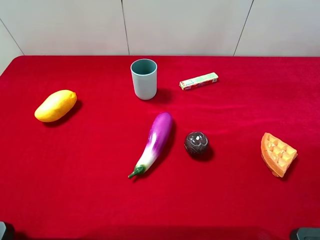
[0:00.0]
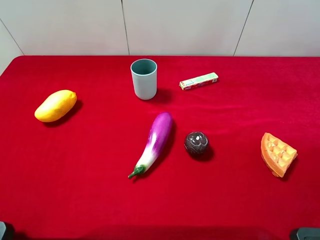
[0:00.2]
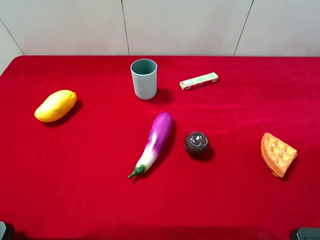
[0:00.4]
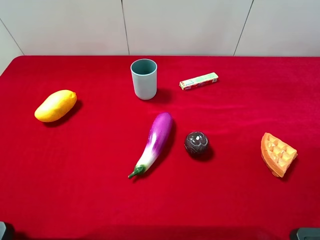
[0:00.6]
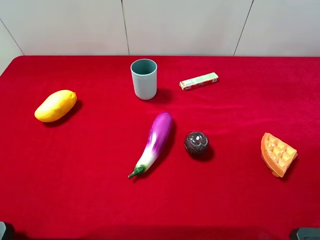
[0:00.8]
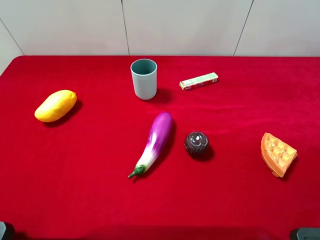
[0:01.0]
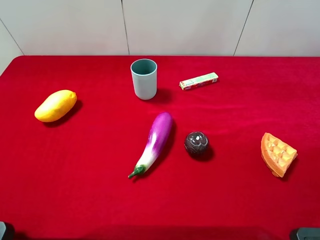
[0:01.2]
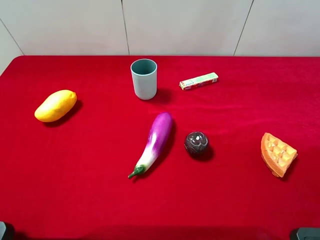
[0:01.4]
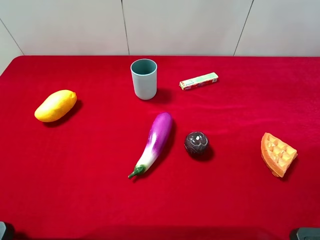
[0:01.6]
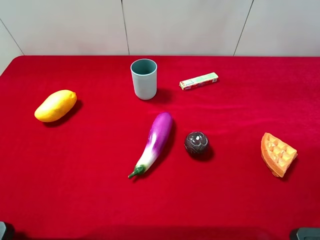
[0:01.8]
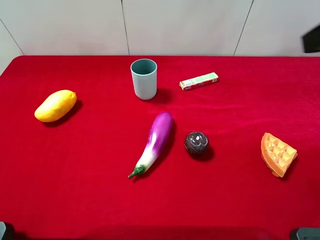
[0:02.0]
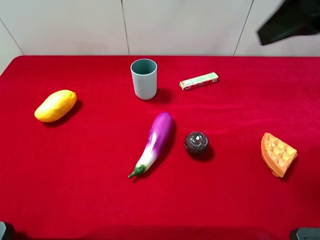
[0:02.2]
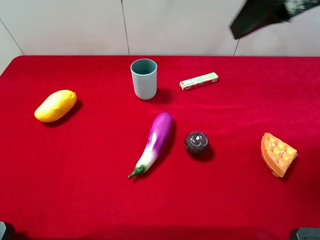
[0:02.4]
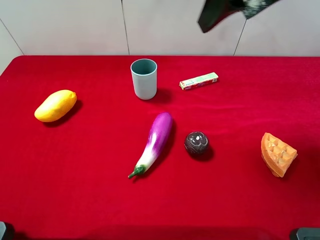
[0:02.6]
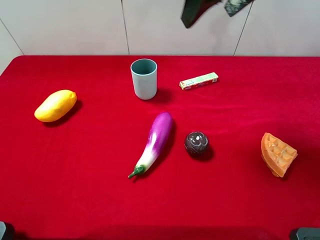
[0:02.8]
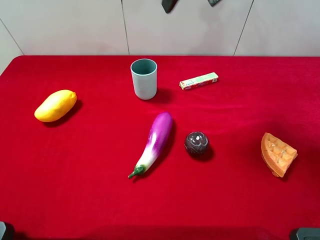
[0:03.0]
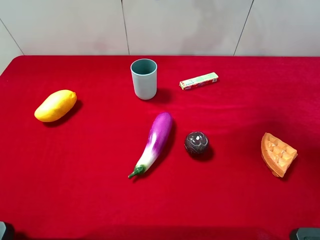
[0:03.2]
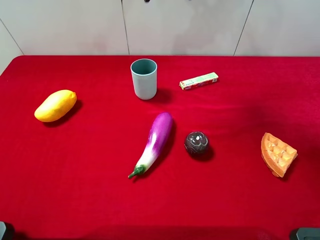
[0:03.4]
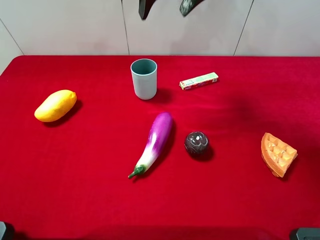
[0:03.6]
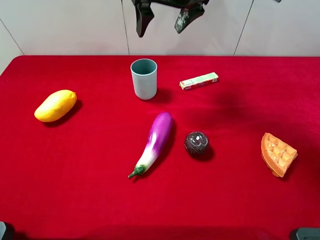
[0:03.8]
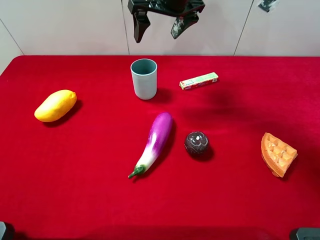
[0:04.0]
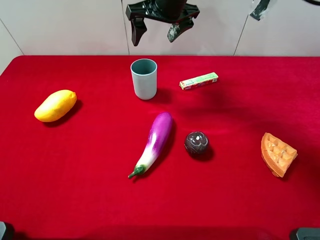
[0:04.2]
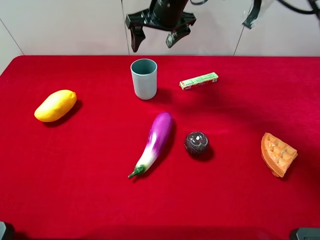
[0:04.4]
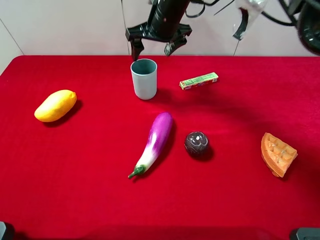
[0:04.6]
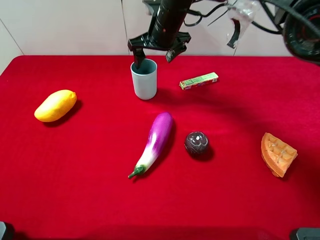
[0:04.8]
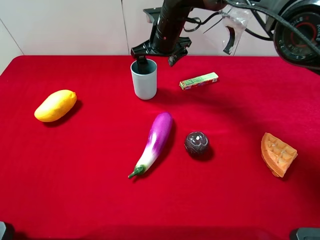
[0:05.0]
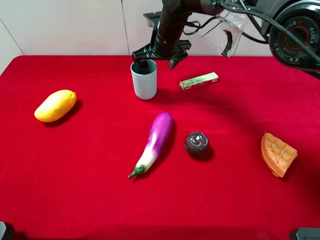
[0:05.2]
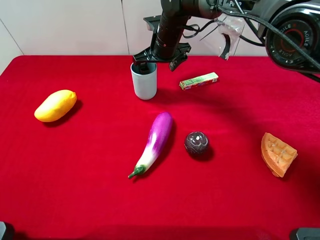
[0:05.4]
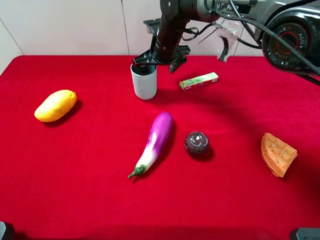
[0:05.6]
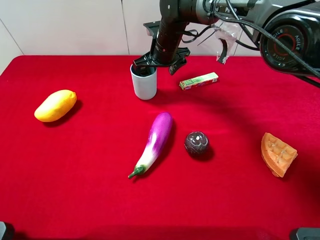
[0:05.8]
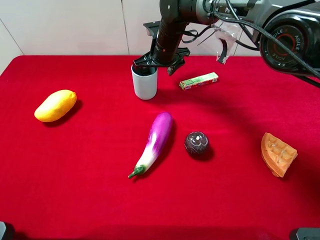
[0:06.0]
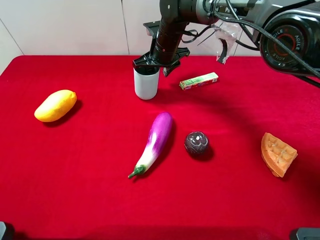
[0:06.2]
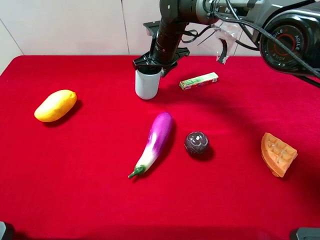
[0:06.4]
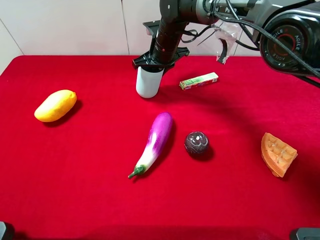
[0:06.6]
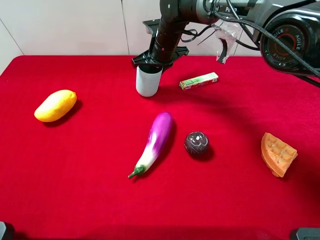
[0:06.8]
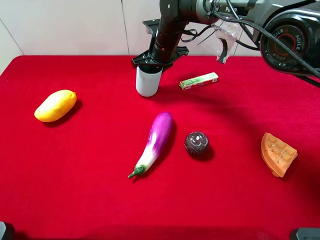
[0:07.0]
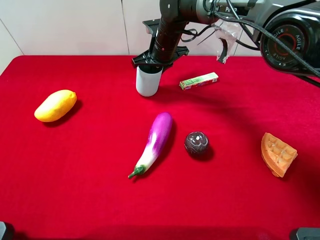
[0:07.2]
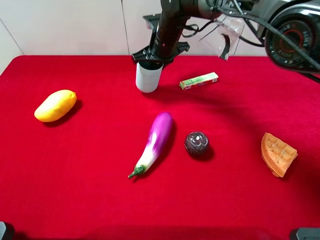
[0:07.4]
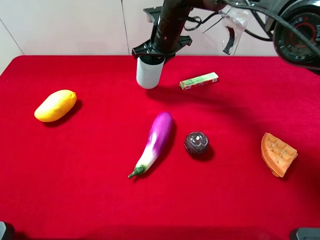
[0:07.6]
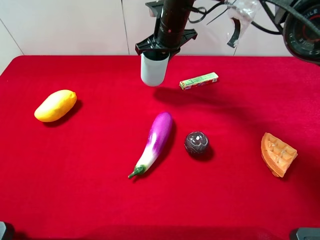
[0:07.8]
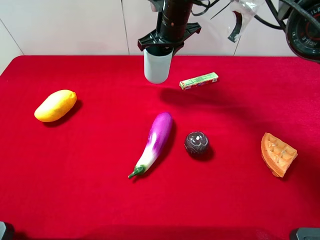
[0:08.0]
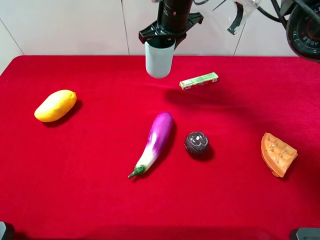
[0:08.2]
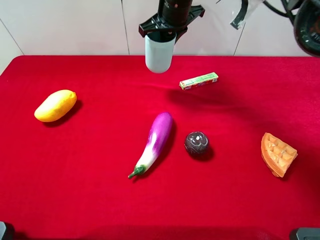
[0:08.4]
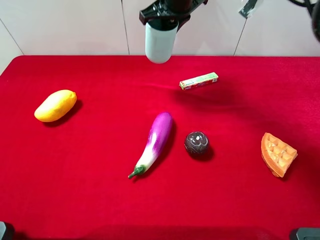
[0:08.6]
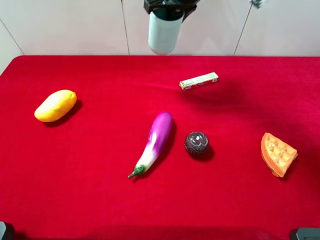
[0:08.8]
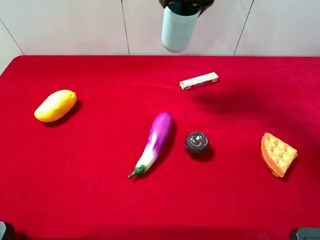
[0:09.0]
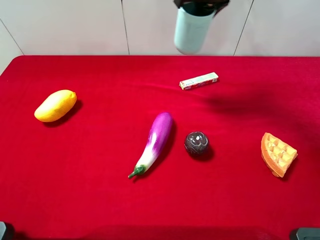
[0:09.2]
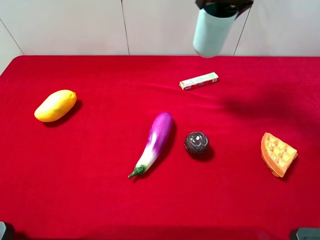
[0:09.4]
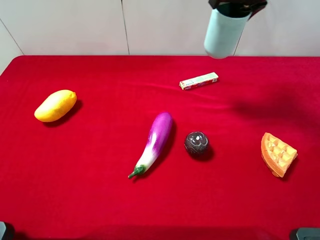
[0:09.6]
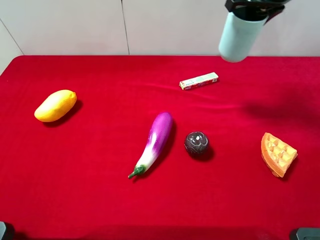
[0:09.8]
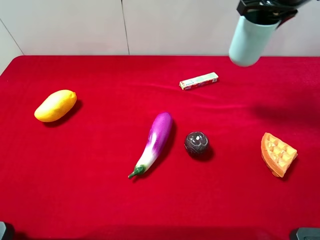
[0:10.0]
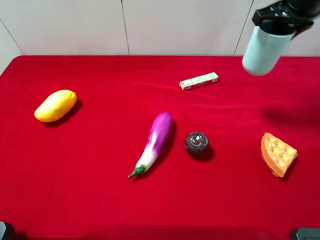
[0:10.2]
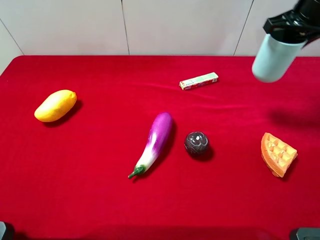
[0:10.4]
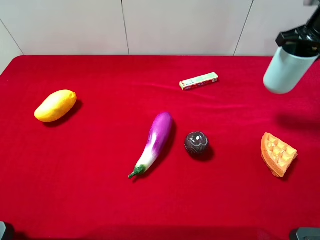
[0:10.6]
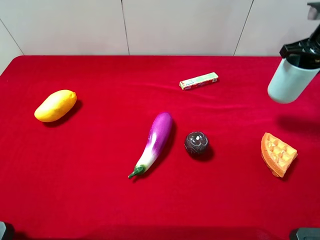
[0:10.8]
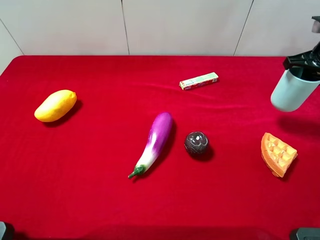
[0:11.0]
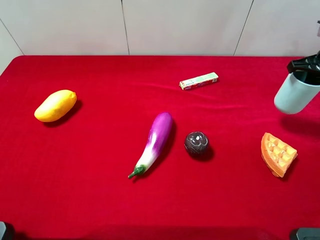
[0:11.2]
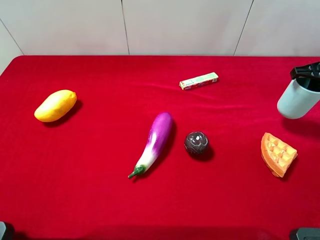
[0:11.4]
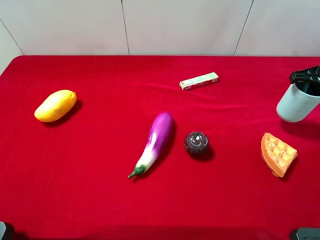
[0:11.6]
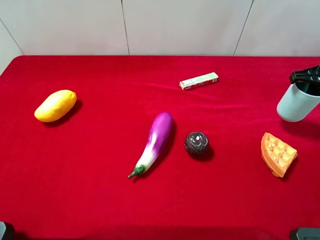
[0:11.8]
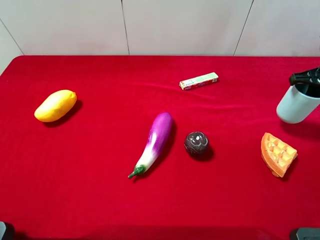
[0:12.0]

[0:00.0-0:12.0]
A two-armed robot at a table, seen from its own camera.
Task of the whole recording: the gripper move the object.
Step, 0:00.0 to 0:07.0: Grasp the blue cup with the right gripper.
0:01.6 to 0:03.0: The right gripper is displaced forward and to the left by about 30 cm.
0:03.0 to 0:04.4: The right gripper shifts roughly 20 cm downward, forward and to the left.
0:04.4 to 0:06.0: The right gripper is displaced downward by some 10 cm.
0:06.0 to 0:07.6: The right gripper closes.
0:07.6 to 0:09.0: The right gripper shifts roughly 15 cm upward and to the right.
0:09.0 to 0:10.4: The right gripper shifts approximately 20 cm to the right.
0:10.4 to 0:12.0: The right gripper is displaced downward and to the right by approximately 15 cm.

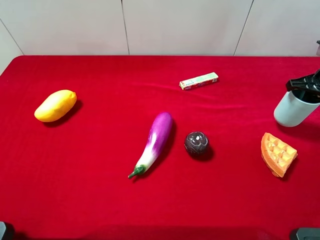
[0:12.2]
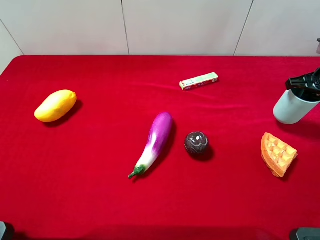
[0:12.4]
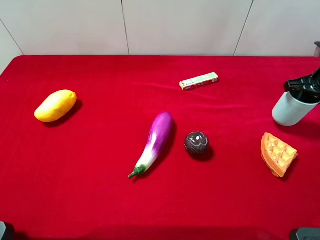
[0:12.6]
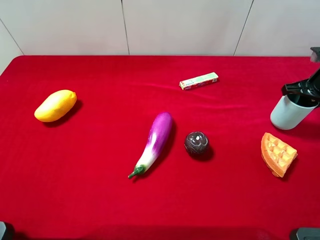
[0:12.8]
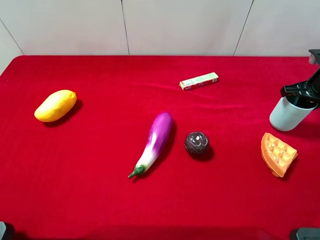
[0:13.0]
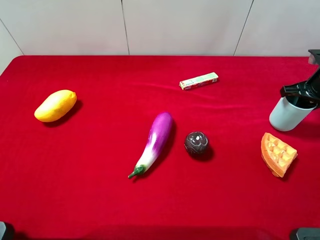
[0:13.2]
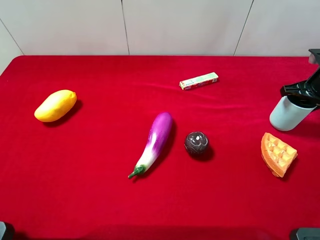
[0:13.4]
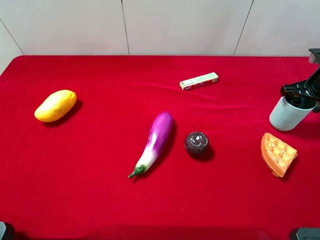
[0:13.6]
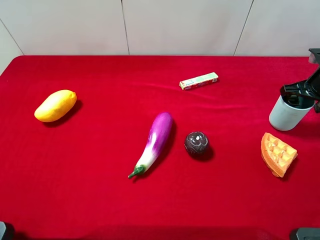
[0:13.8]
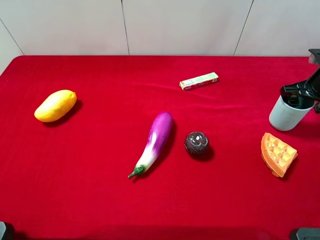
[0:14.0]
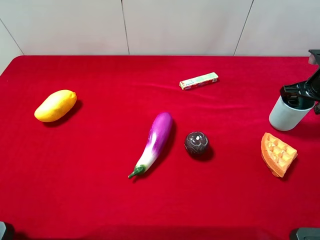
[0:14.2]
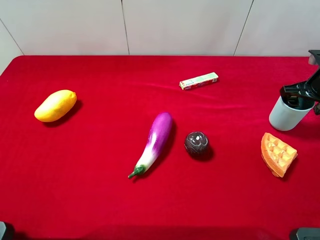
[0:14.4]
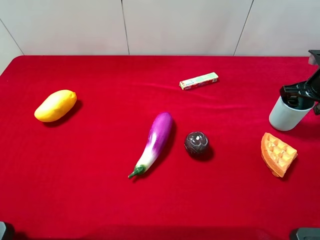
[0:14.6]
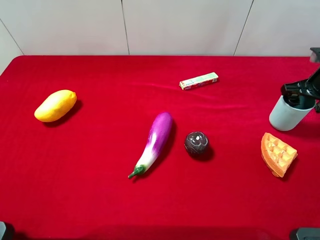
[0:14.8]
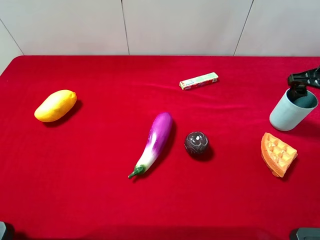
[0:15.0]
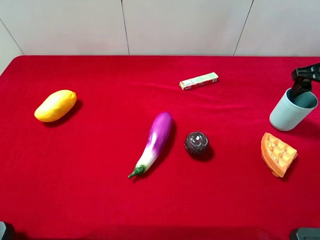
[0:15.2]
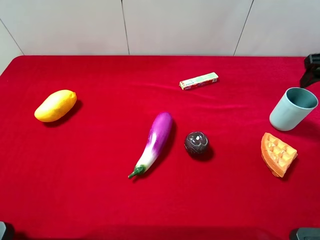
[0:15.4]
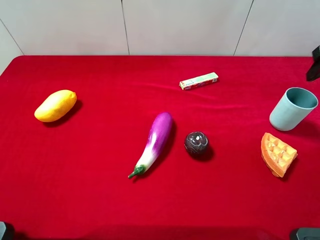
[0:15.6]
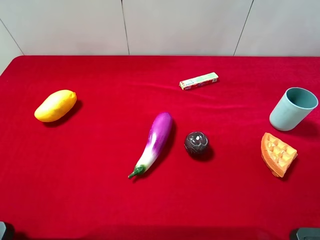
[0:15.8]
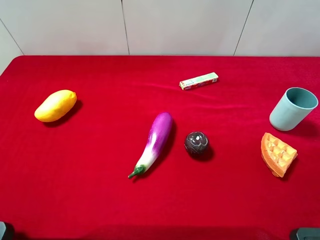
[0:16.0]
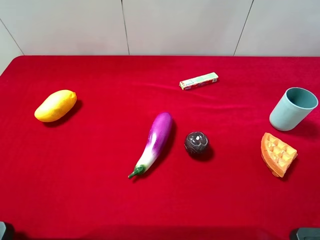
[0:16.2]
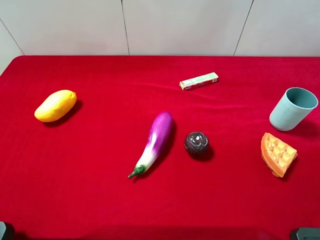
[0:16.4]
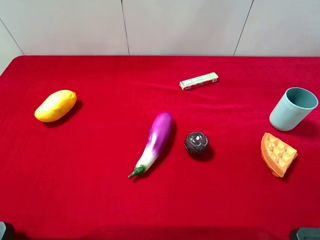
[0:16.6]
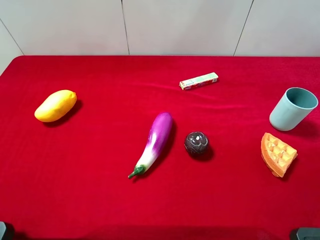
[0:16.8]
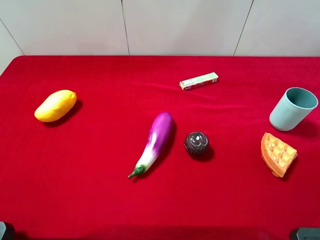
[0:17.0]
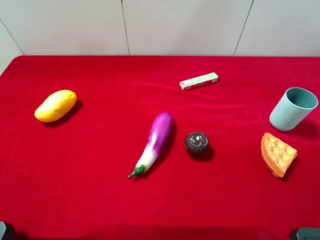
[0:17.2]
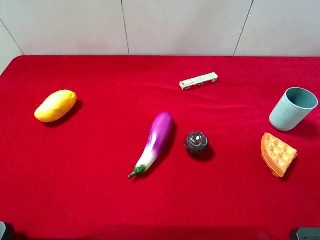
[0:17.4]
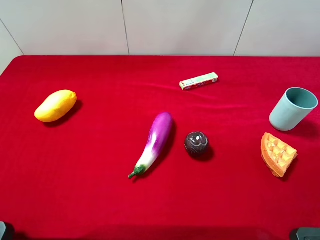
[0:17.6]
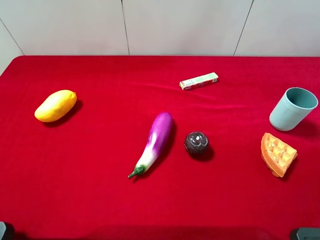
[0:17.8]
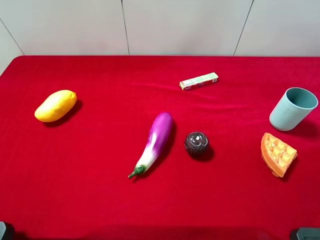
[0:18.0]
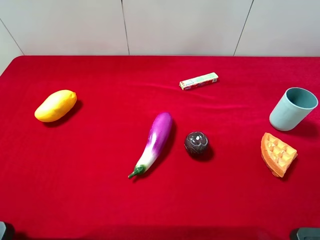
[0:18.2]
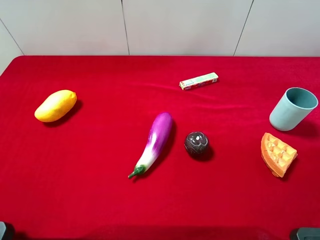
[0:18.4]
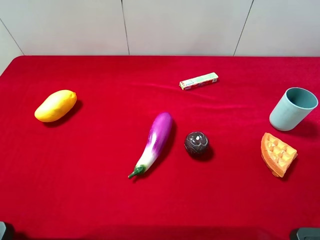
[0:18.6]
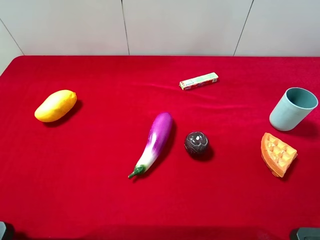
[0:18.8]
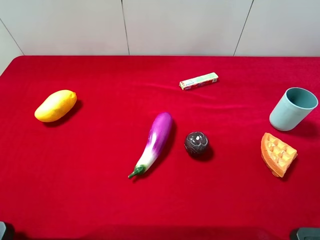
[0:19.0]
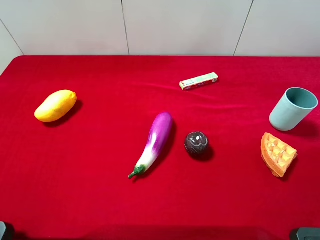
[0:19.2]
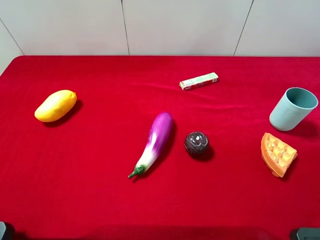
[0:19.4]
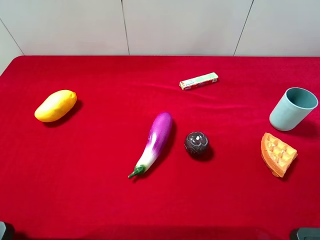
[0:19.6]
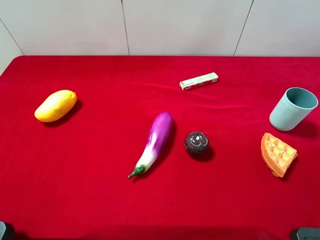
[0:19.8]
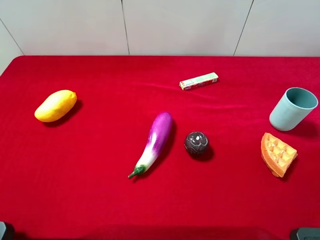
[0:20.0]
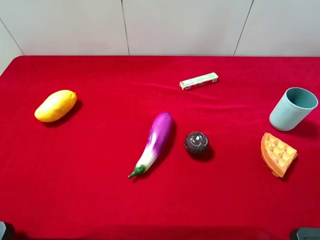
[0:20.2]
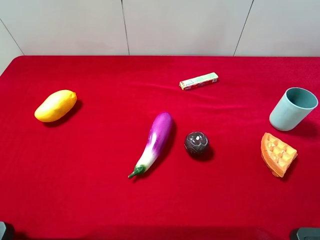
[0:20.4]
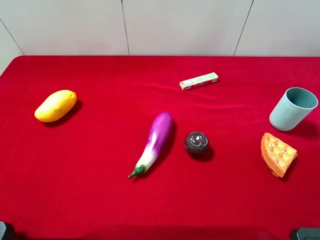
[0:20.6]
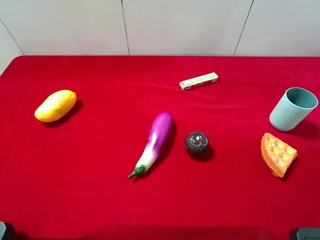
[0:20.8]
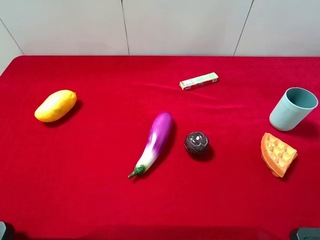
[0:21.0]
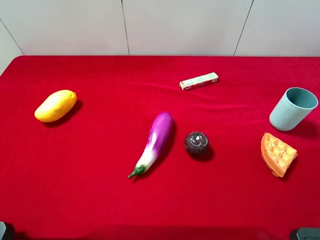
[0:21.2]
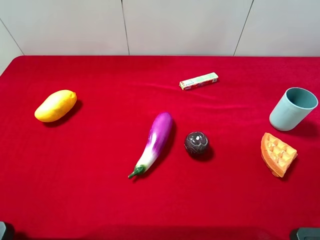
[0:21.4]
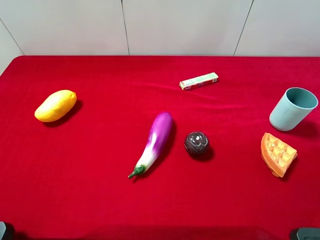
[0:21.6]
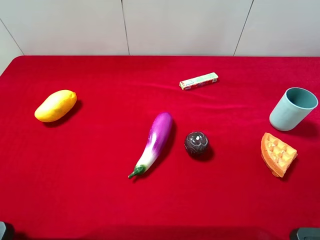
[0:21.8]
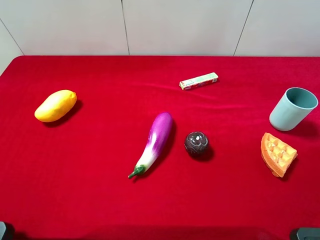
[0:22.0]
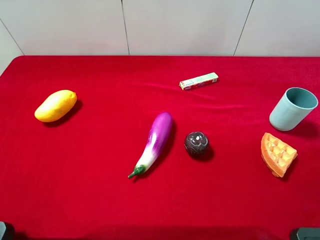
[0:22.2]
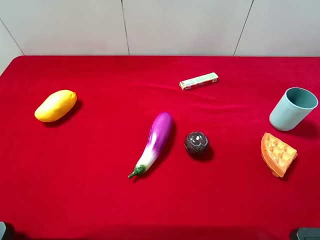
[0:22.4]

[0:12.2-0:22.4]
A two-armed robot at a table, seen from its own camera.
Task of the whole recording: the gripper move the object.
Step, 0:12.2 to 0:15.4: Place the blue cup on the table with the right gripper.
0:12.2 to 0:13.6: The right gripper opens.
0:13.6 to 0:15.2: The right gripper travels upward by about 5 cm.
0:15.2 to 0:16.6: The right gripper heads backward and upward, covering some 25 cm.
0:21.0 to 0:22.4: Both grippers stay put.
